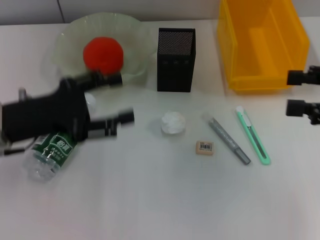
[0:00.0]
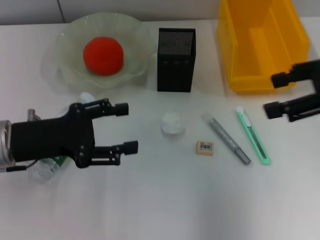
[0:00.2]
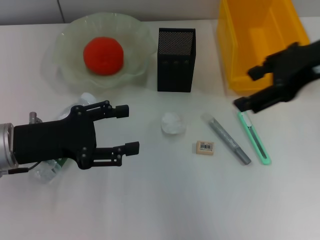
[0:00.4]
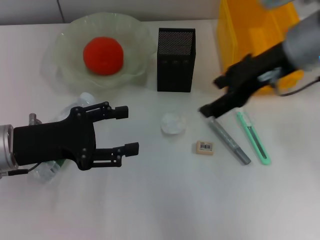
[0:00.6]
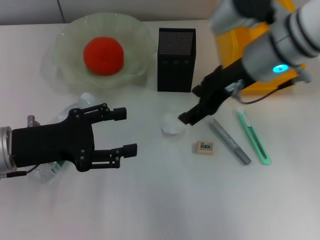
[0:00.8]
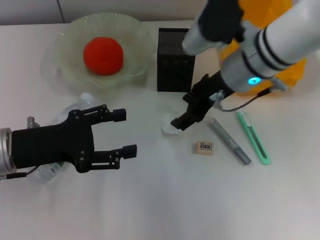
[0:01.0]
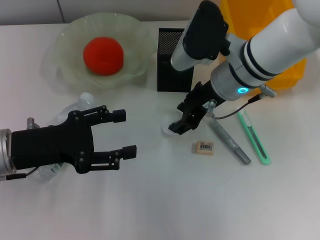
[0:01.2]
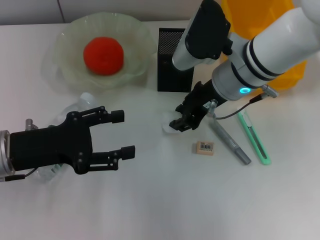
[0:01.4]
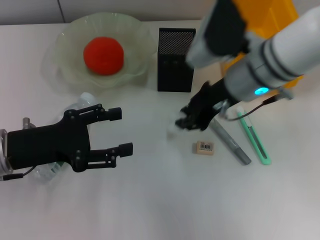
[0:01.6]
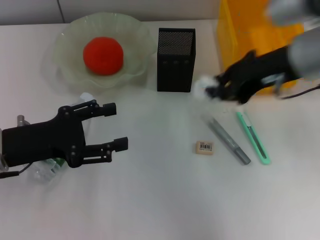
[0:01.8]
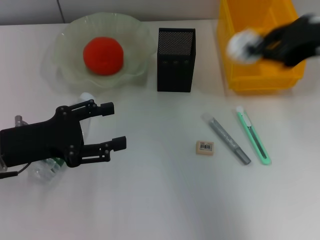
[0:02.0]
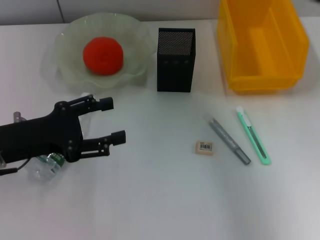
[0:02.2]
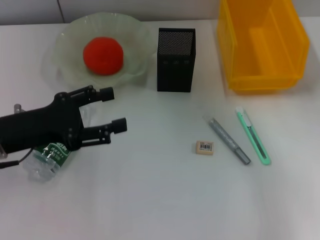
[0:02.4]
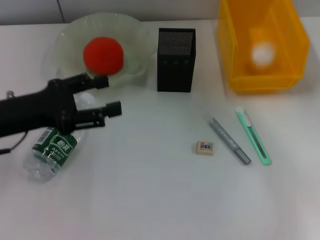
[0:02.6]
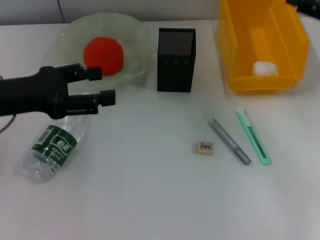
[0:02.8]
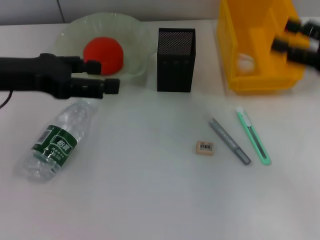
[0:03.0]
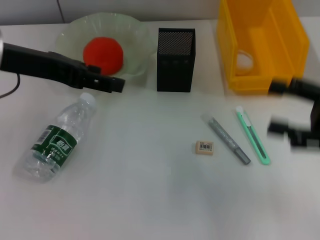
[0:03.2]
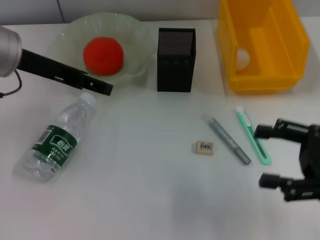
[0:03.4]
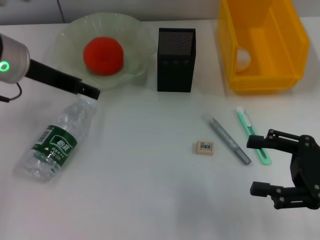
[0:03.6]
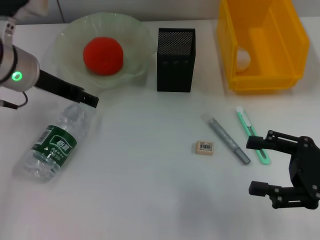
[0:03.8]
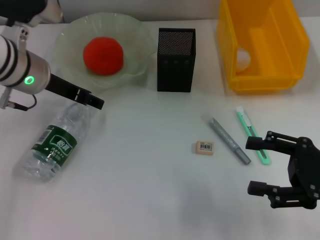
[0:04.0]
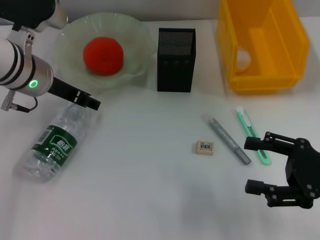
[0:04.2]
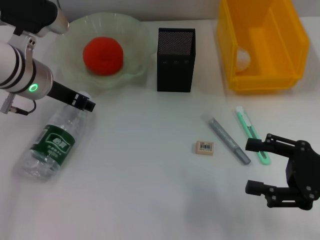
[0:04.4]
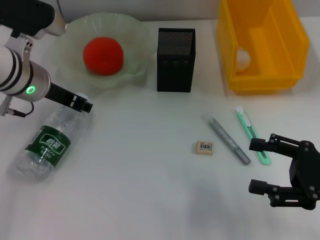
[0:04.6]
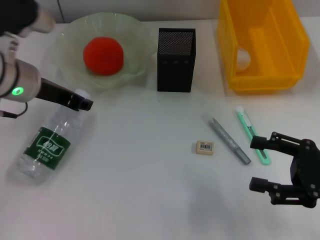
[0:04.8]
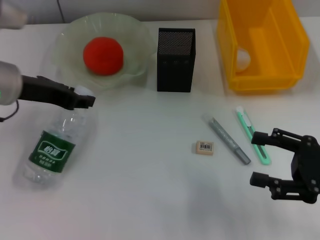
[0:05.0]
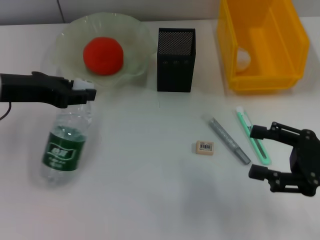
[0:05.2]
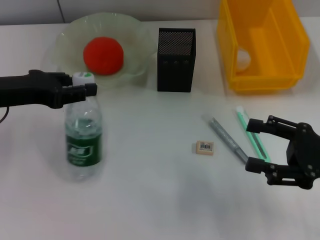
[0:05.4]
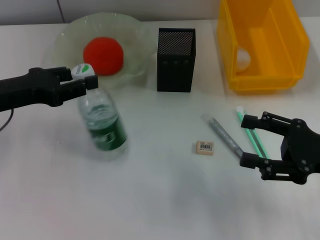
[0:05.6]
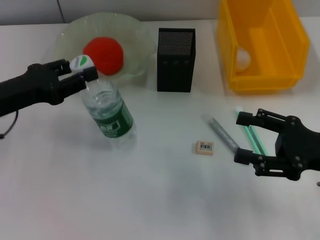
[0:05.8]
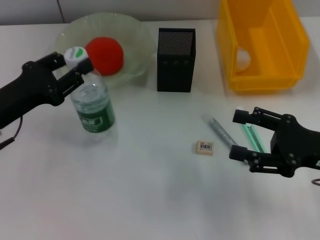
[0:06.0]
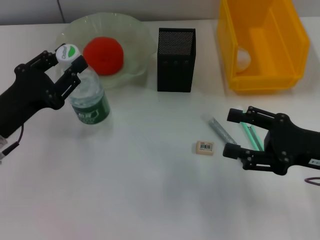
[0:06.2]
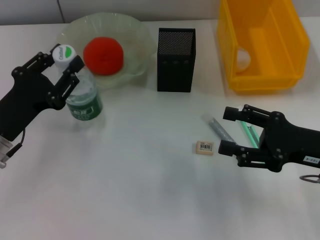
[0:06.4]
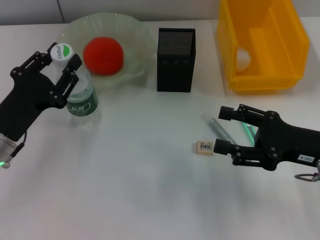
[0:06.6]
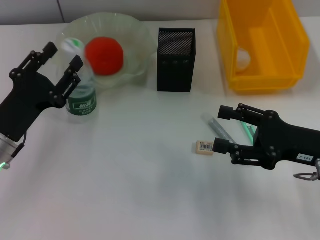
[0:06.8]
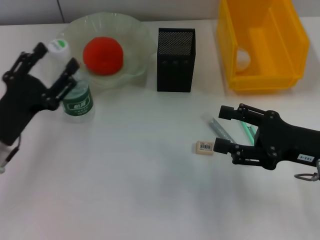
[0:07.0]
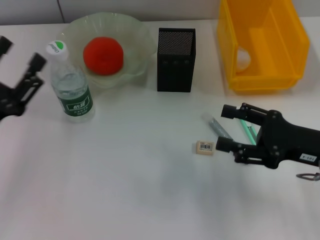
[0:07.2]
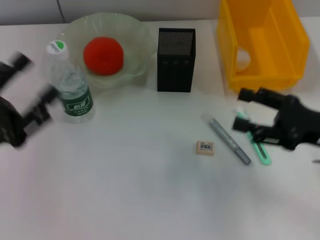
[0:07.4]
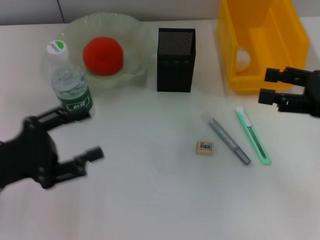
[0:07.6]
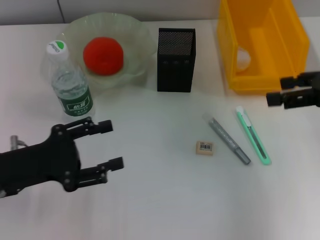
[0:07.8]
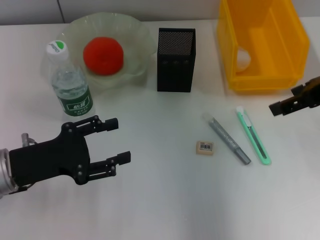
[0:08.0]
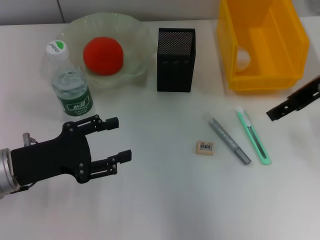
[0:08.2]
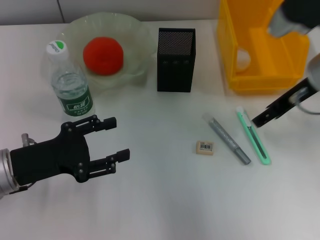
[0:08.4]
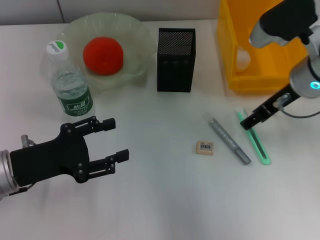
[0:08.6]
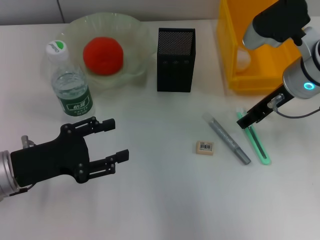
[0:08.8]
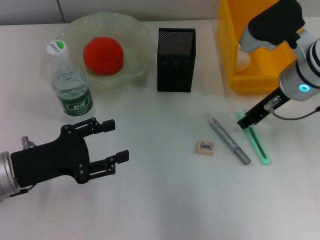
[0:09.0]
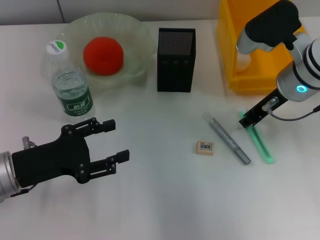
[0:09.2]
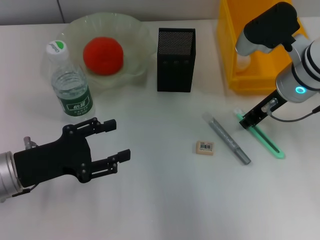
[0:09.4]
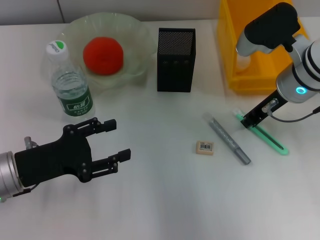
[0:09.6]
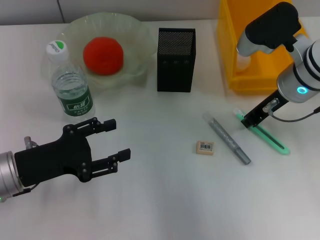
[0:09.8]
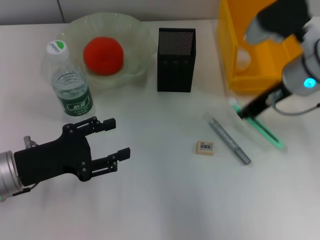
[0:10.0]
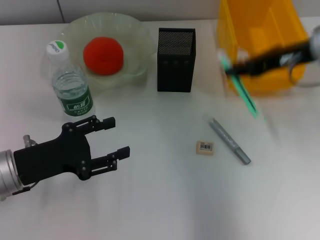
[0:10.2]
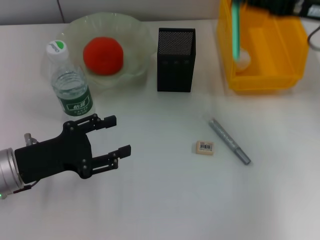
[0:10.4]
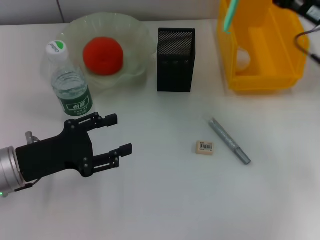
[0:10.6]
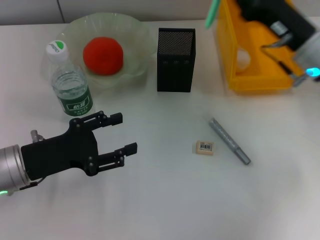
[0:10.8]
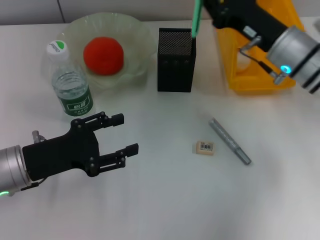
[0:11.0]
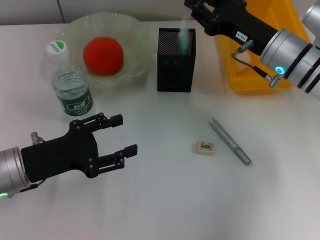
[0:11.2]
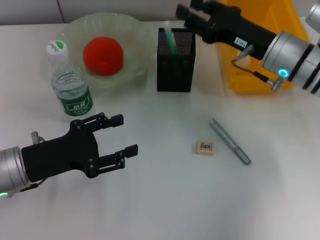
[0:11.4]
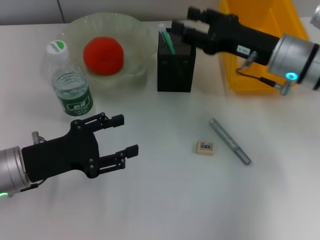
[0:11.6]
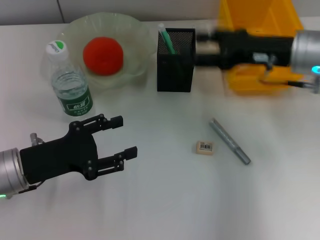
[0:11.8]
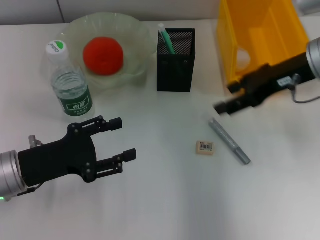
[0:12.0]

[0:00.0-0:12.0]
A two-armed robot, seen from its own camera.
Step, 0:00.0 to 0:01.2: Grab the paper ball with the right hand.
Step, 0:01.4 to 0:02.8: Place the paper ball into the trash can with the right hand.
Step, 0:03.0 to 0:04.4: Grab the water bottle with the left hand.
Step, 0:04.6 to 0:06.8: Place the water bottle on the table with the left hand.
Step, 0:07.0 to 0:09.4: Grab the blue utility knife with the right hand.
Step, 0:09.6 to 0:11.4: Place the blue utility knife into the pen holder with the right hand.
0:00.0 to 0:01.6: The right gripper travels to the left and forward by roughly 20 cm, and closes up.
0:01.6 to 0:03.0: The right gripper travels to the right by some 20 cm, and opens its fingers, while the left gripper shifts some 10 cm upward.
0:03.0 to 0:04.4: The left gripper is displaced forward, downward and to the right by about 10 cm; the right gripper is displaced downward and backward by some 10 cm.
0:04.4 to 0:06.0: The left gripper moves backward and to the left, about 15 cm, and closes its fingers.
0:06.0 to 0:07.6: The right gripper travels upward by approximately 5 cm; the left gripper moves backward, roughly 5 cm, and opens.
0:07.6 to 0:09.0: The right gripper shifts roughly 15 cm to the left and forward.
0:09.0 to 0:10.4: The right gripper shifts some 10 cm to the right and upward, and closes.
0:10.4 to 0:12.0: The right gripper reaches roughly 10 cm downward, then returns, and opens its fingers.

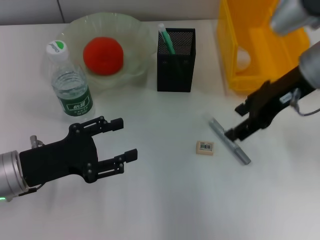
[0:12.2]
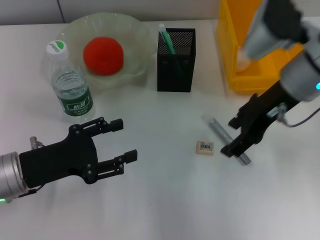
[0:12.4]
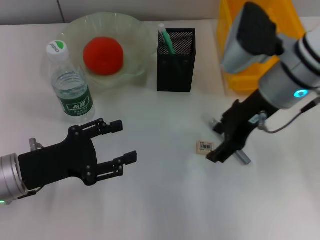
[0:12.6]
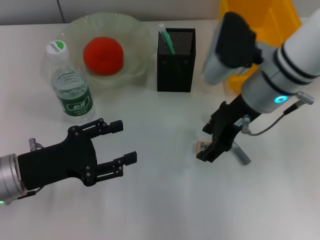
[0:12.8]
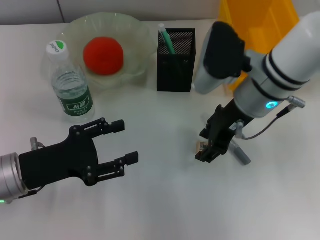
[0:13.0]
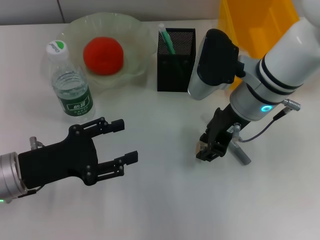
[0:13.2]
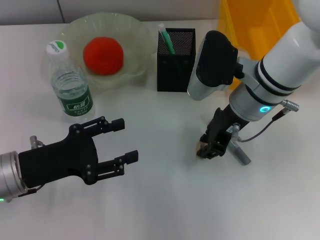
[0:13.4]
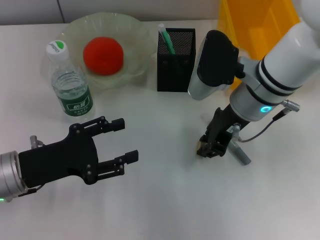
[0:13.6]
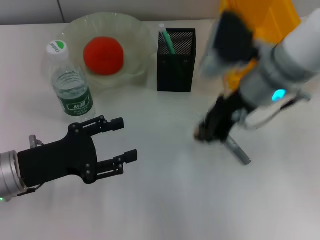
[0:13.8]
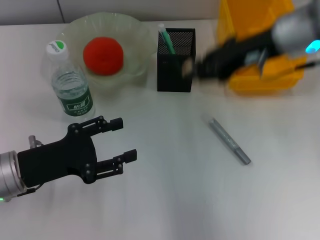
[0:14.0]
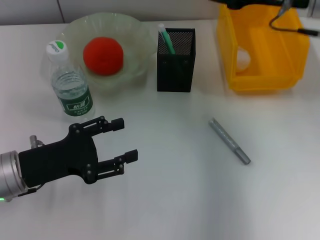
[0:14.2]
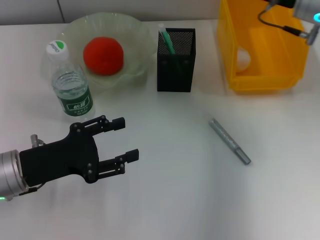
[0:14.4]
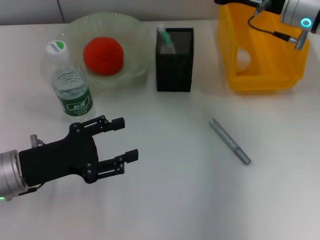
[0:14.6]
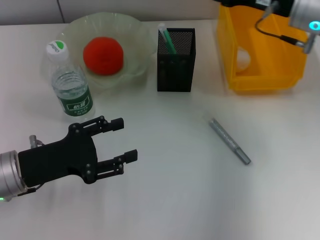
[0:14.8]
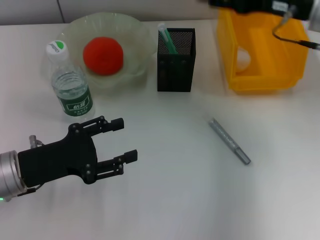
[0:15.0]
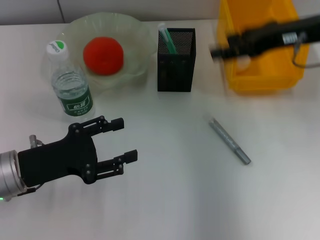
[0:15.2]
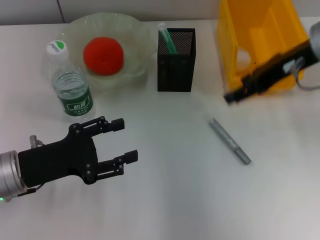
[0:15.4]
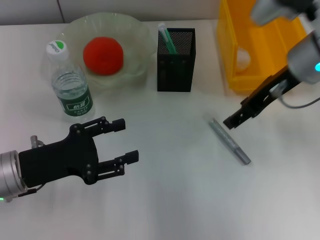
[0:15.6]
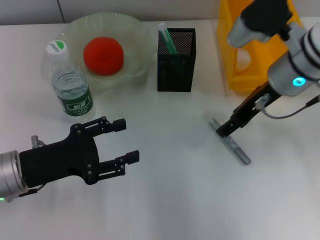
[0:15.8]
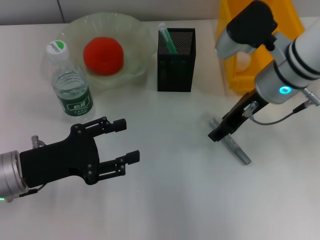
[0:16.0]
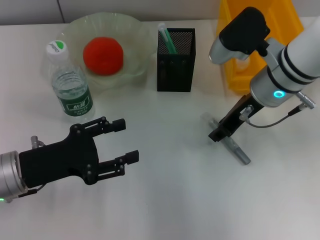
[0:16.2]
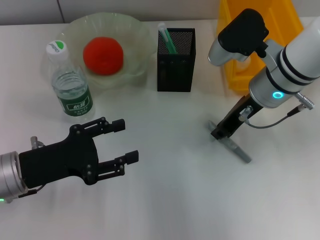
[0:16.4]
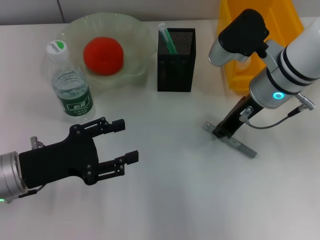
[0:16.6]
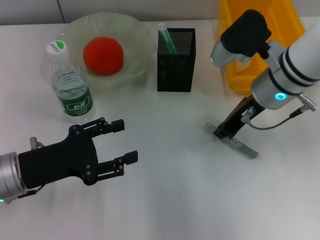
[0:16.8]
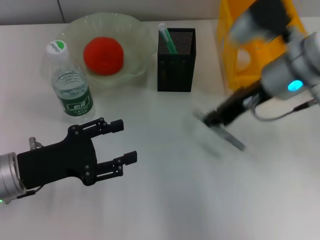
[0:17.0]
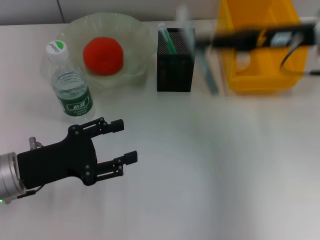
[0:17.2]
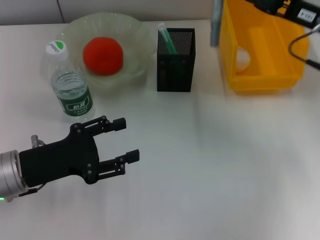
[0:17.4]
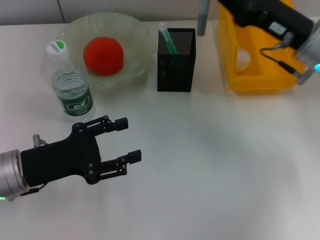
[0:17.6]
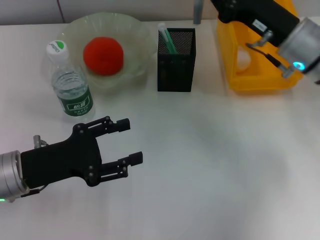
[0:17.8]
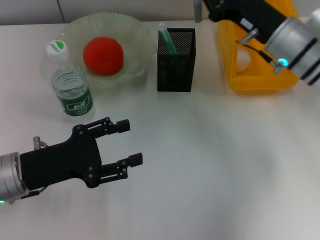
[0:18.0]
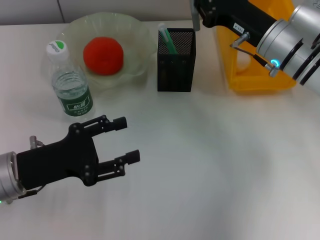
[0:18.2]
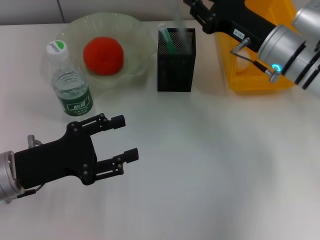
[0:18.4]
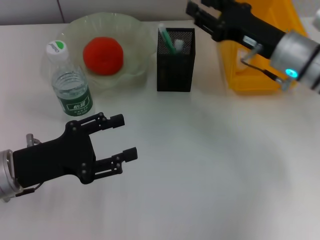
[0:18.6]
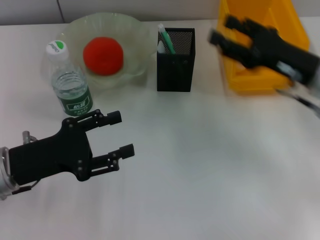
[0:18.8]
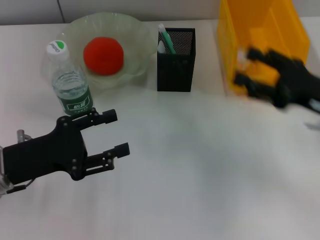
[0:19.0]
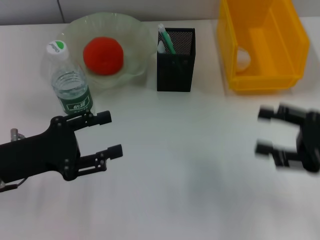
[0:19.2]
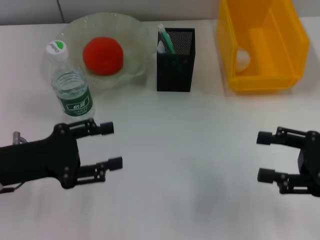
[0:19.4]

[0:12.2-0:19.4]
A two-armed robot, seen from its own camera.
Step, 0:12.2 to 0:13.2: Grab the eraser with the right hand.
Step, 0:13.4 to 0:14.8: Put the eraser into the pen holder with the right hand.
Step, 0:15.0 to 0:16.4: Grab the gray glue with the right hand.
Step, 0:16.6 to 0:18.6: Place the gray glue into the pen holder with the right hand.
0:12.2 to 0:13.6: The right gripper heads to the left and downward, covering about 10 cm, and closes.
0:13.6 to 0:15.0: The right gripper shifts some 15 cm to the right and upward, and opens.
0:15.0 to 0:16.6: The right gripper goes roughly 10 cm to the left and downward, and closes its fingers.
0:18.0 to 0:19.4: The right gripper travels backward and to the right by roughly 20 cm, and opens up.

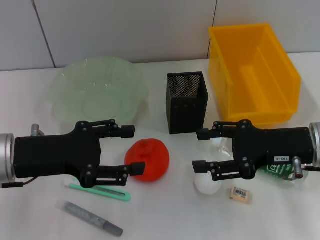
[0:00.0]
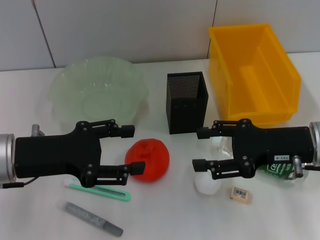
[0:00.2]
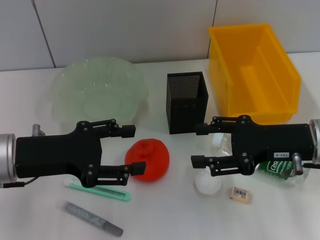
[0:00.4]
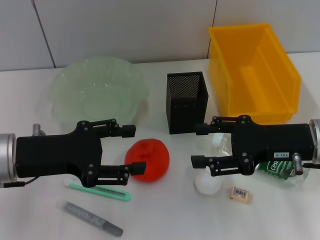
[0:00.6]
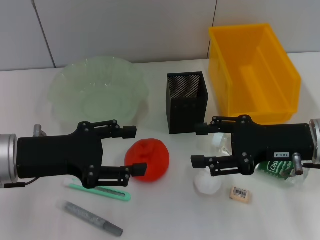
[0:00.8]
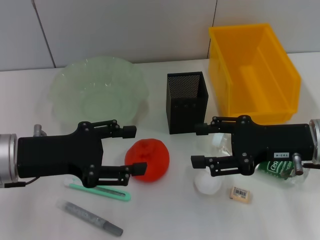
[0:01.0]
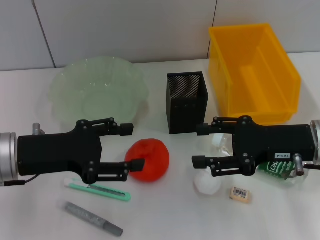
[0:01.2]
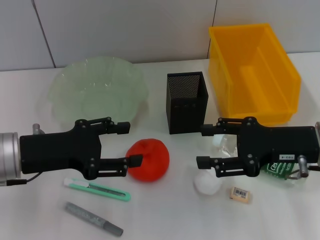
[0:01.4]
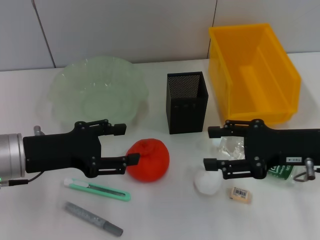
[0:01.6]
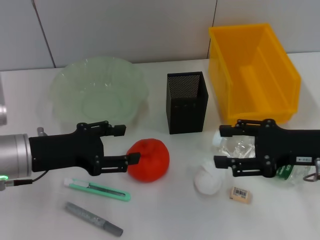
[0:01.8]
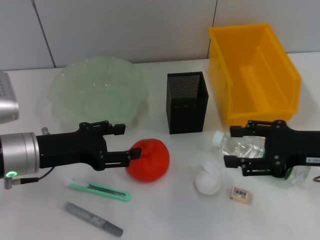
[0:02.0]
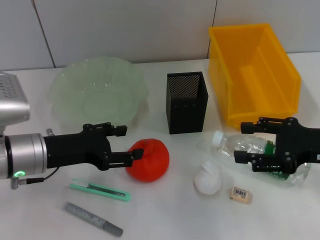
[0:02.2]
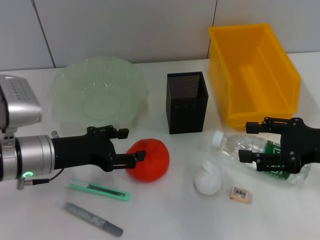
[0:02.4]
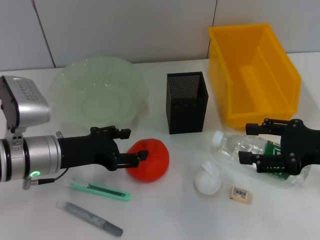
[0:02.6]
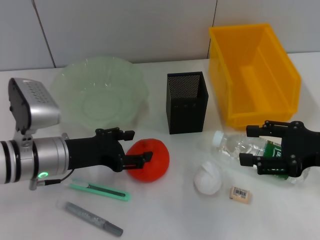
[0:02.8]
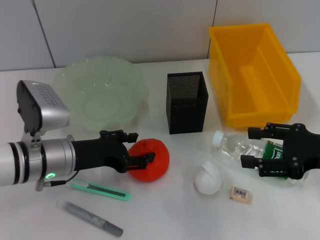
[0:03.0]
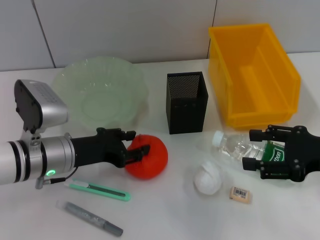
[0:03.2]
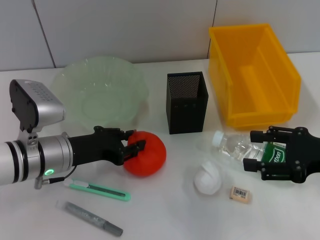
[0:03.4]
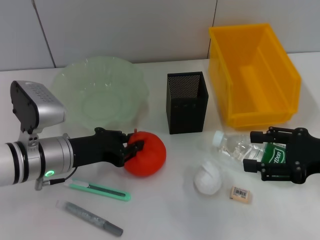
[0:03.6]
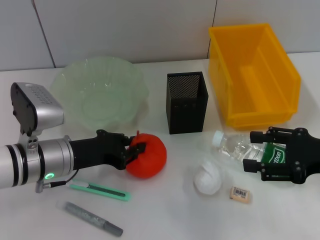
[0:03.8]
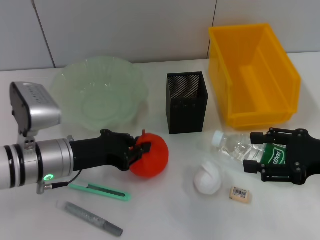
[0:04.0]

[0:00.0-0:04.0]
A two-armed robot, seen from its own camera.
Step, 0:00.0 to 0:03.6: Grab the orange with the left hand.
0:00.0 to 0:01.4: The grippers stay close to where they were, moving slightly.
0:01.4 to 0:02.6: The right gripper heads to the right, covering roughly 5 cm; the left gripper goes roughly 5 cm downward.
0:02.6 to 0:04.0: The left gripper closes up.
